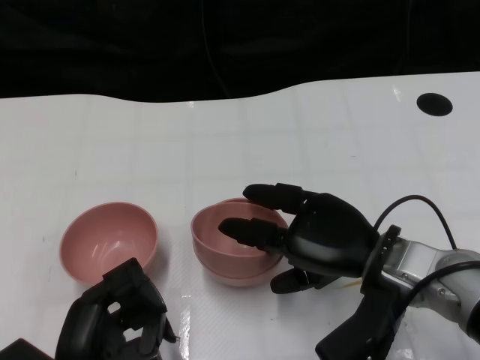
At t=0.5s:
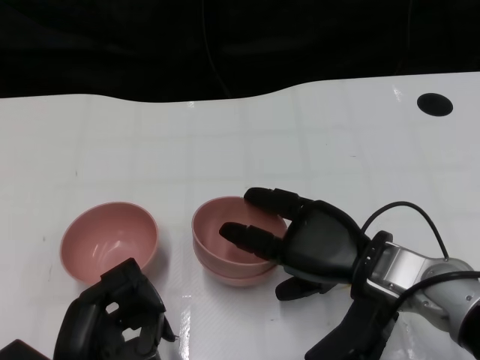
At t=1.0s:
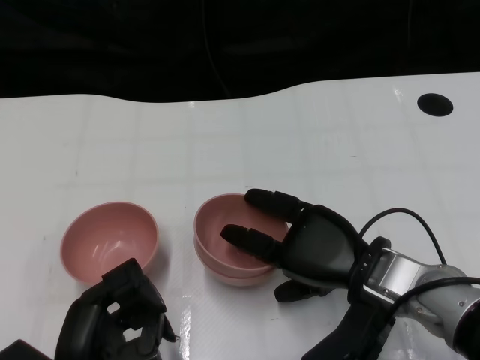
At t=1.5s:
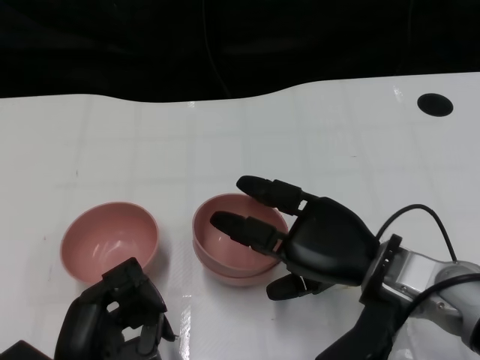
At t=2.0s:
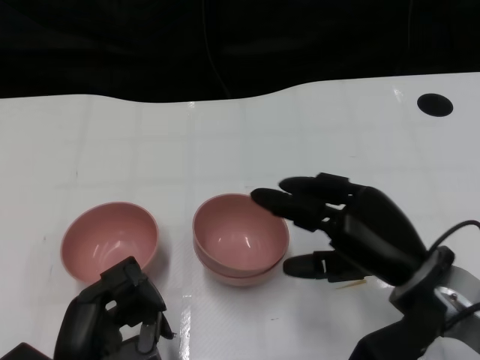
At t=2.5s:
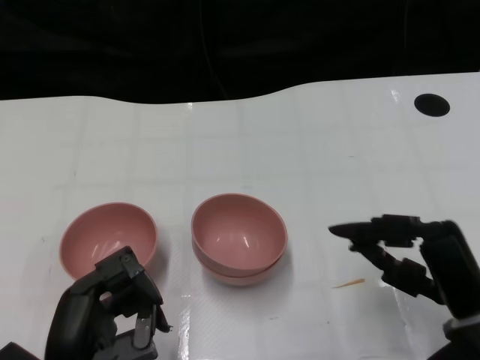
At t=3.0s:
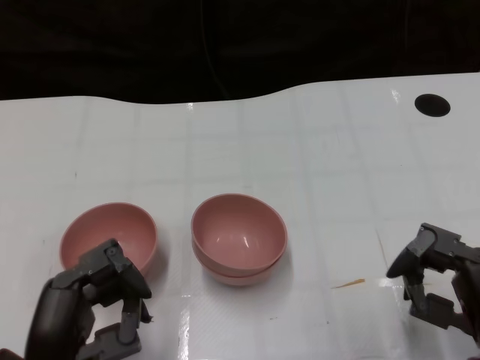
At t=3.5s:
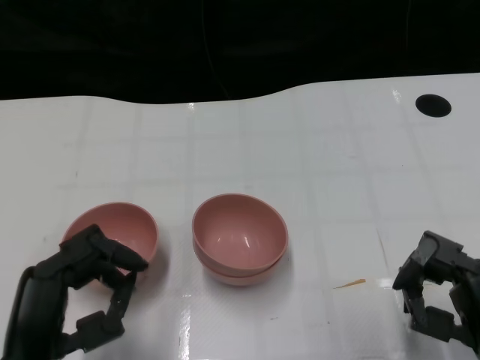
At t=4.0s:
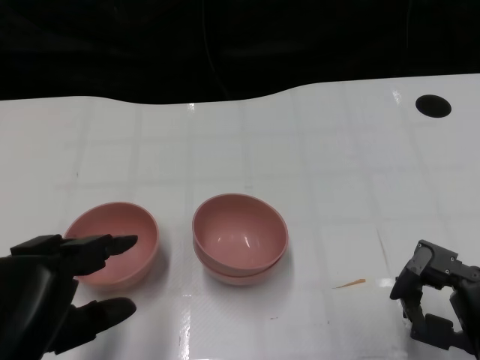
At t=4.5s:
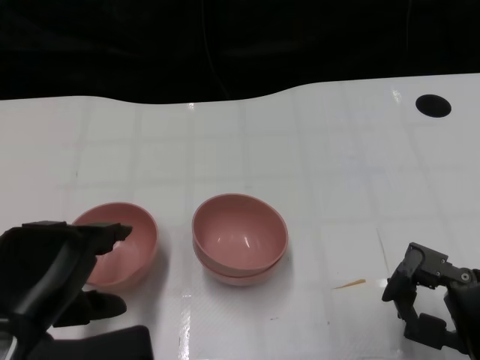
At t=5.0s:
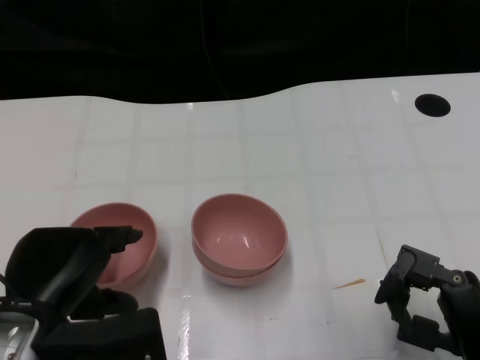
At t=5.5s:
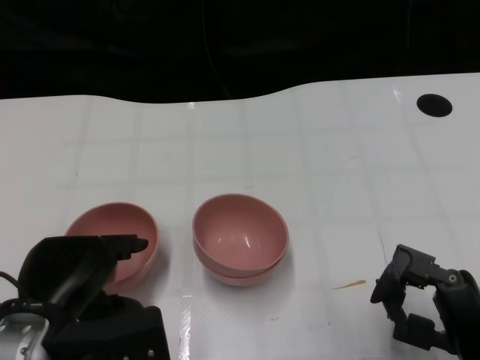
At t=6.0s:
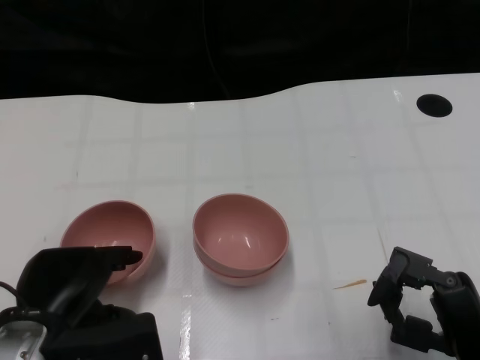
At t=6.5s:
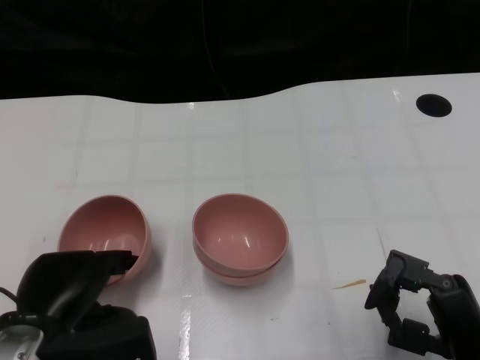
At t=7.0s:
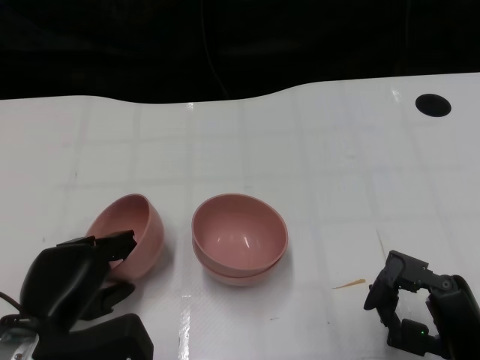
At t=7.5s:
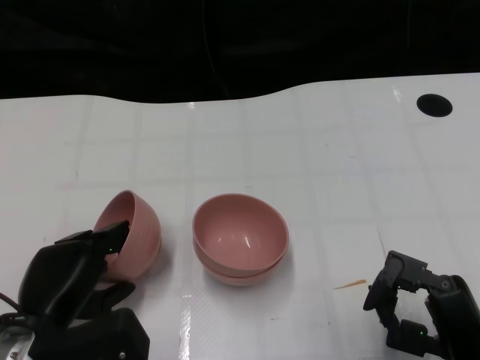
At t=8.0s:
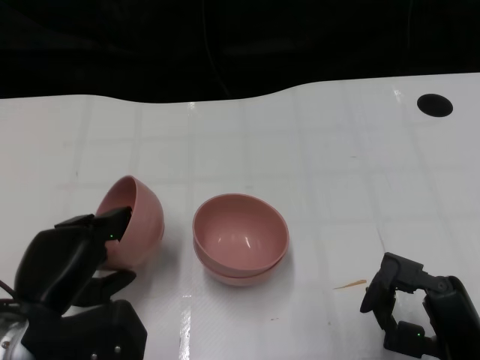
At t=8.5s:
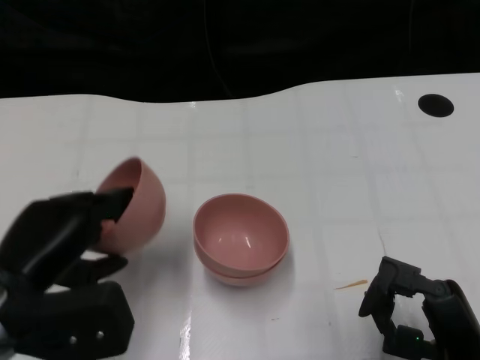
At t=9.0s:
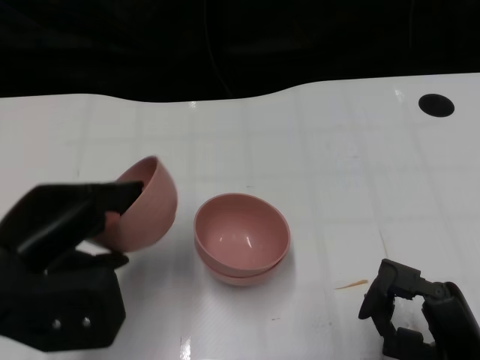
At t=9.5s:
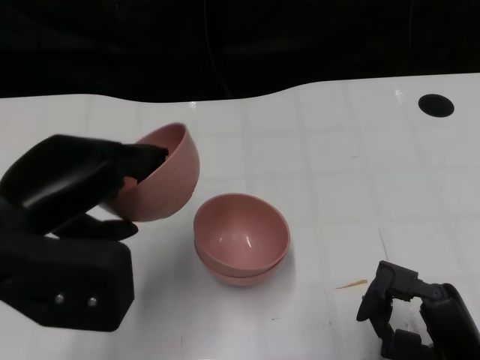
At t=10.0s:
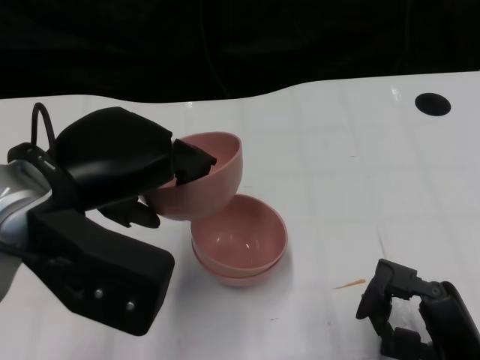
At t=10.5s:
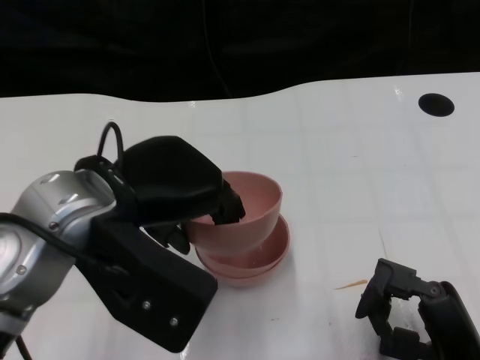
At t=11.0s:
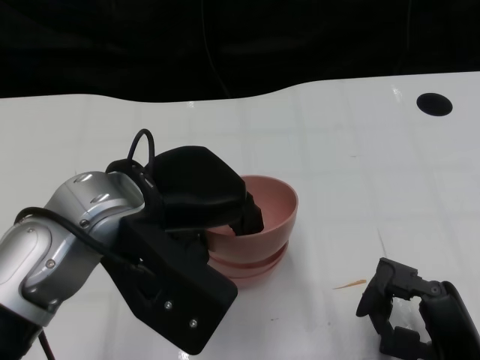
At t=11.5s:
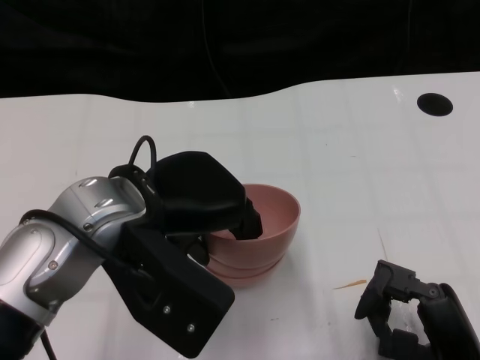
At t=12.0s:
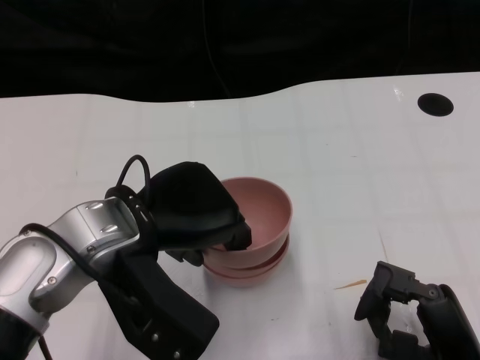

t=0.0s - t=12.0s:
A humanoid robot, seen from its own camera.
Task of the whole recording: Pick up the bowl on one side of the table and place it on top of the middle bowl, then pick up the bowl on the other side of the table and place it on top of the middle bowls.
Step, t=2.0s - t=7.5s: Grasp the bowl on the left with the left gripper.
t=2.0s - t=4.0s: The left hand shifts approximately 10 cm upward. The right hand goes approximately 10 cm backward and to the right.
t=4.0s - t=6.0s: The left hand is displaced forward and downward by approximately 10 cm.
t=6.0s - t=8.0s: The hands make only small movements.
t=8.0s - t=10.0s: The left hand shifts about 15 cm upward.
t=10.0s - t=12.0s: The left hand shifts about 5 cm downward.

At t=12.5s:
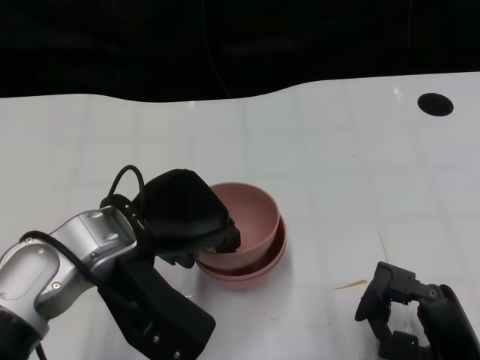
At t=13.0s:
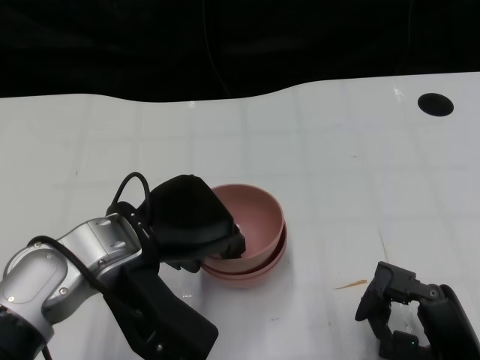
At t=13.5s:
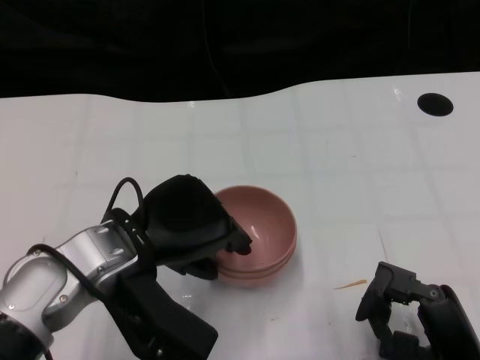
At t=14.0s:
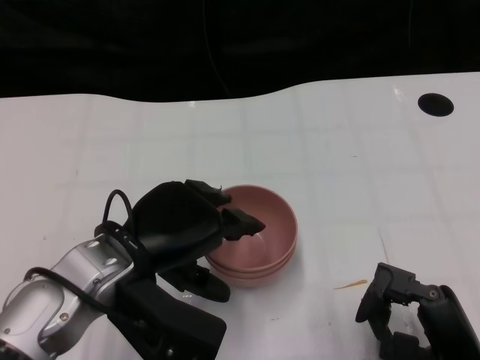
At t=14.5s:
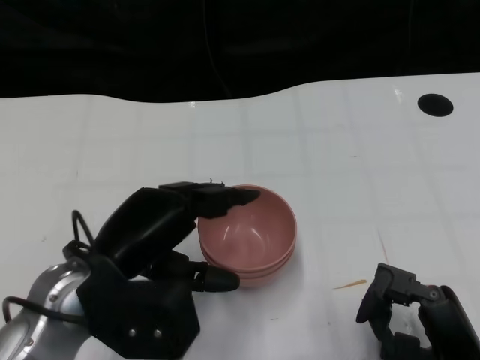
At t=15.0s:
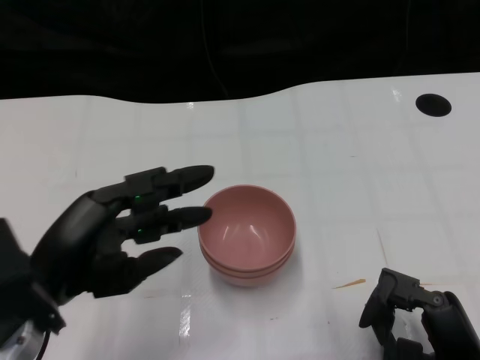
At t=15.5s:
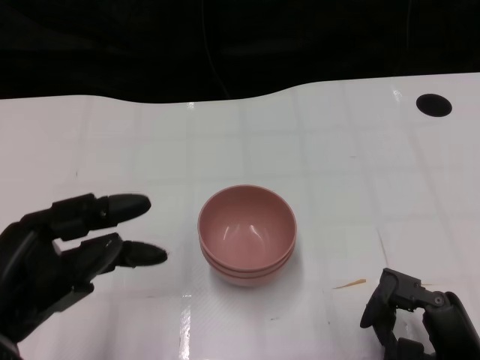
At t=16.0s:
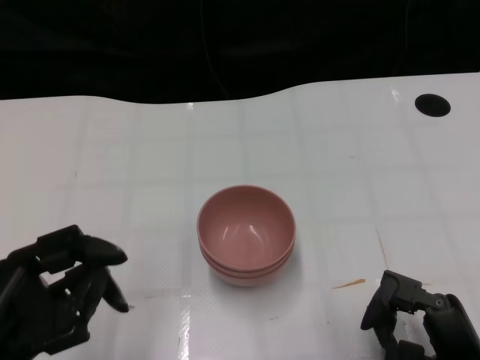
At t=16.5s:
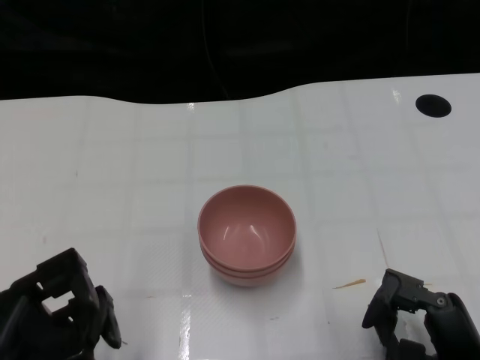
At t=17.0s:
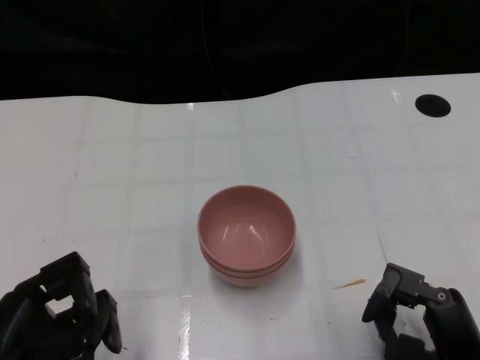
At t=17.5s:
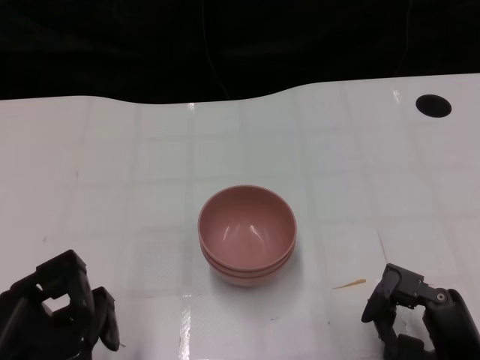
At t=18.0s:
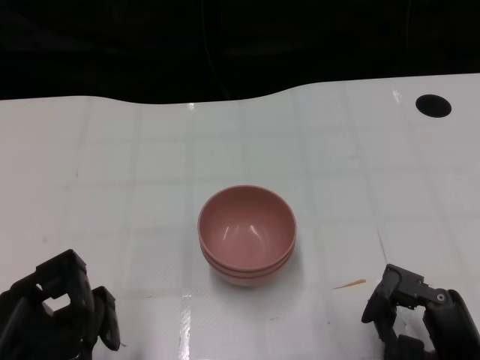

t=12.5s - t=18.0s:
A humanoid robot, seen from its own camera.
Task of the whole recording: Pick up the bowl on one side of the table and place it on top of the middle bowl, then pick up the bowl on the other side of the table and place it on top of the middle bowls.
Step, t=12.5s - t=14.5s: Place the bowl on the left onto the bowl in the middle with left gripper.
t=14.5s - t=16.0s: The left hand goes roughly 10 cm to the left and backward.
t=16.0s - t=18.0s: The hands stay close to where they were, moving slightly.

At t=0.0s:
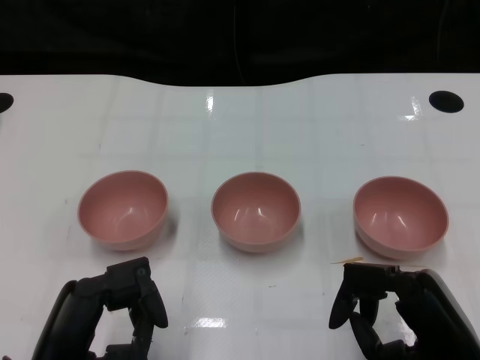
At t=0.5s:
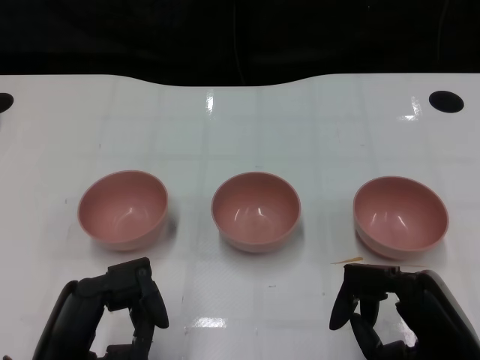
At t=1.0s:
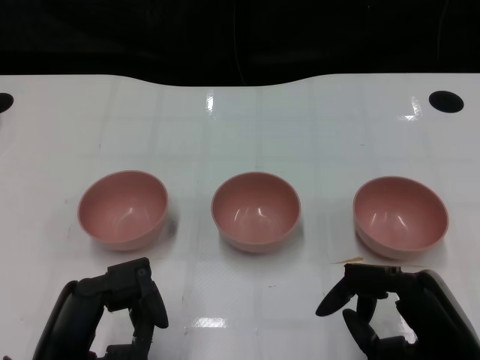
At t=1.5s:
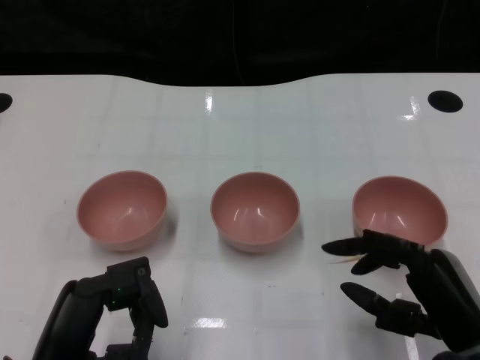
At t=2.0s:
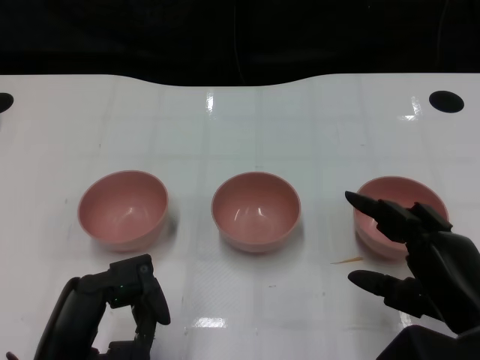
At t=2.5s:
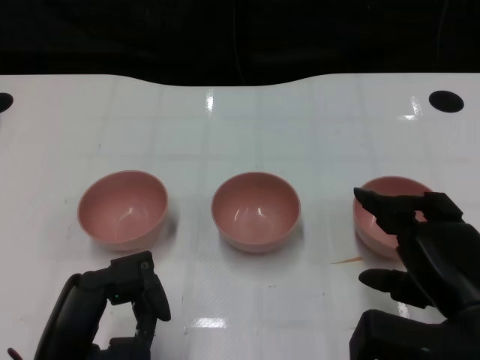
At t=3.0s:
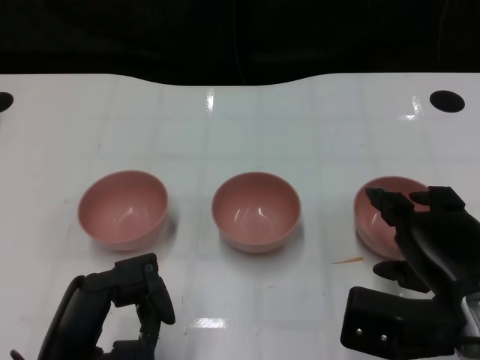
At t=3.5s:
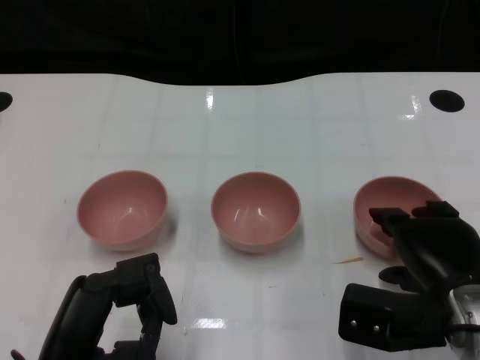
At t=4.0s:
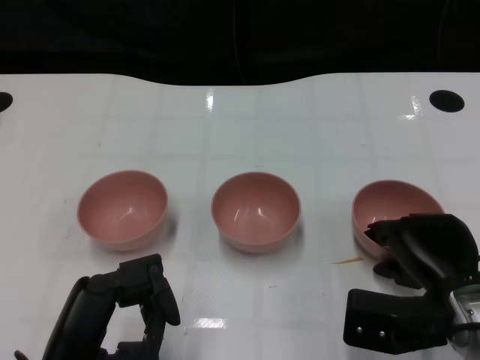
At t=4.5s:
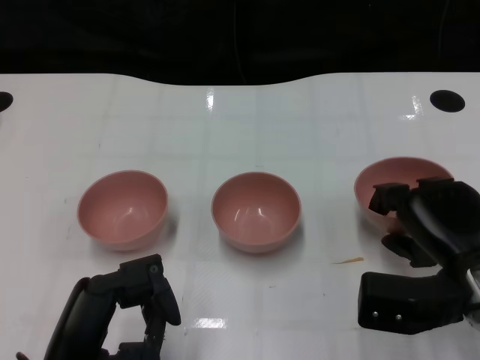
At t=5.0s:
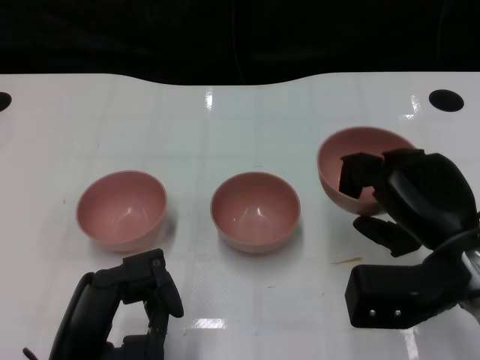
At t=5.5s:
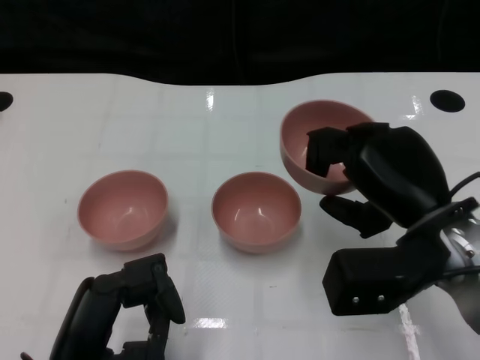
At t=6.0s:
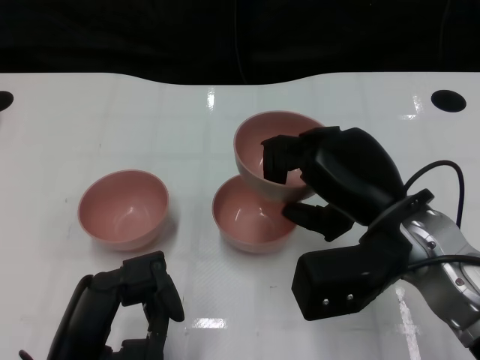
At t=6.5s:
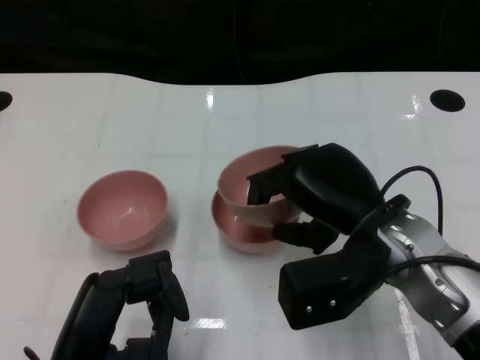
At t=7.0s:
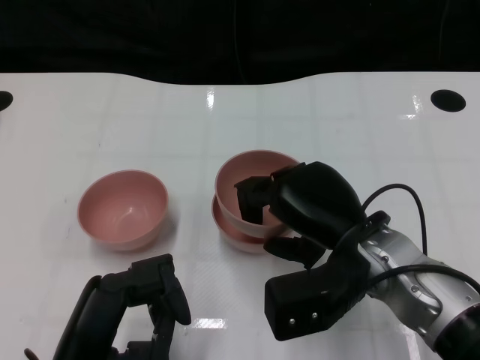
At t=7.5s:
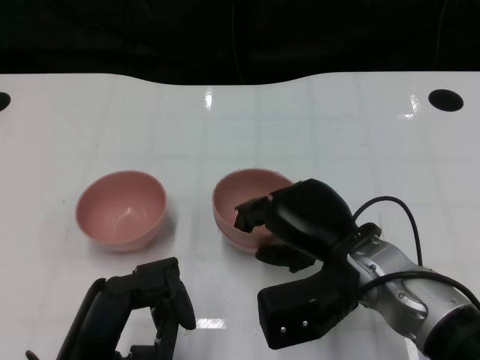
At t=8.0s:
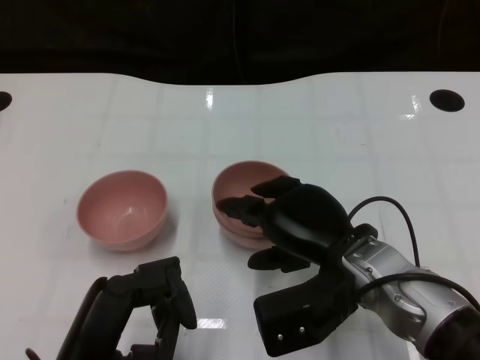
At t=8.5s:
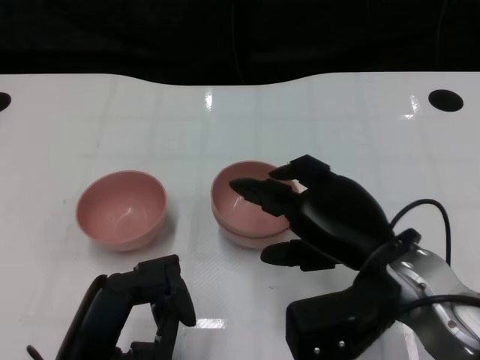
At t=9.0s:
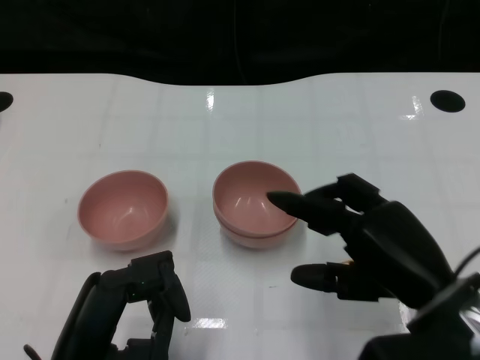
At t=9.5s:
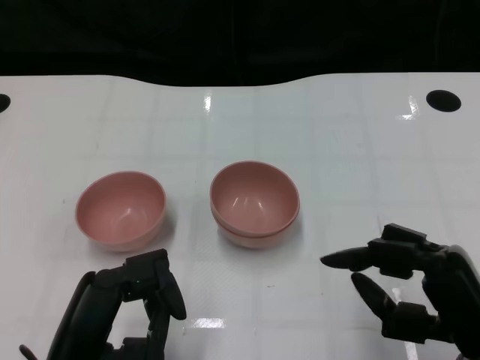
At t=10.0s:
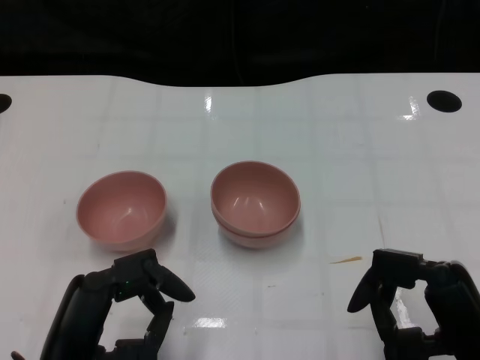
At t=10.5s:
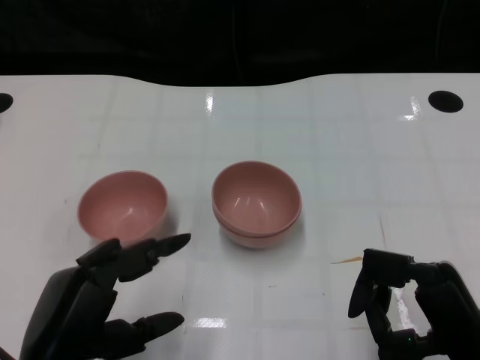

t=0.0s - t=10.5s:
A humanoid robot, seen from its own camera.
Task of the whole recording: Pick up the bowl on one side of the table and place it on top of the middle bowl, then pick up the bowl on the other side of the table and place it on top of the middle bowls.
Step, t=1.0s - t=4.0s: Grasp the bowl on the right with the right gripper.
Step, t=4.5s - t=9.0s: Place the bowl on the right onto the bowl in the middle with right gripper.
t=2.0s - t=4.0s: The right hand is displaced forward by some 5 cm.
t=4.0s - t=6.5s: The right hand is displaced upward and to the left by about 10 cm.
t=6.5s - t=8.5s: The hands move only a little.
t=8.5s - t=10.5s: The right hand goes about 10 cm backward, to the right and downward.
